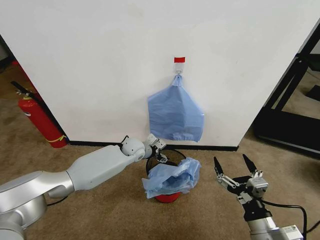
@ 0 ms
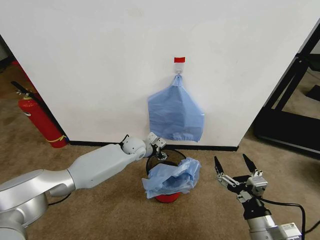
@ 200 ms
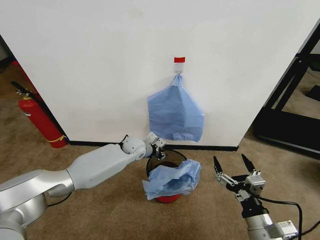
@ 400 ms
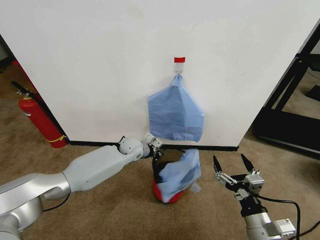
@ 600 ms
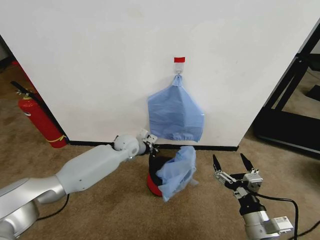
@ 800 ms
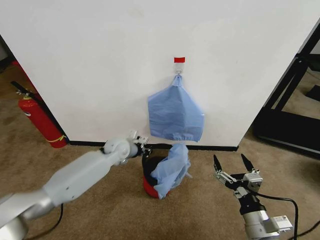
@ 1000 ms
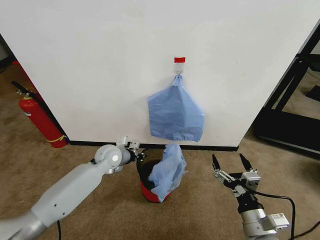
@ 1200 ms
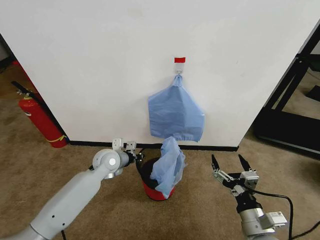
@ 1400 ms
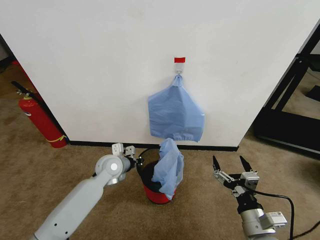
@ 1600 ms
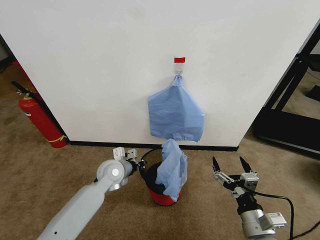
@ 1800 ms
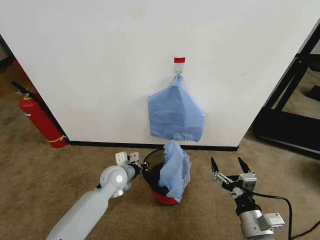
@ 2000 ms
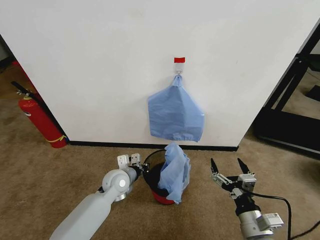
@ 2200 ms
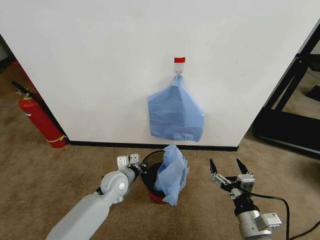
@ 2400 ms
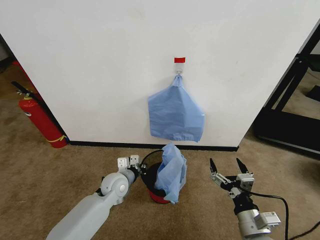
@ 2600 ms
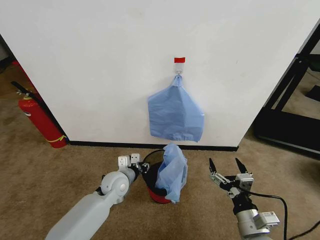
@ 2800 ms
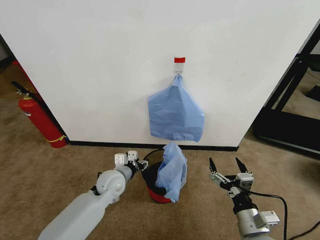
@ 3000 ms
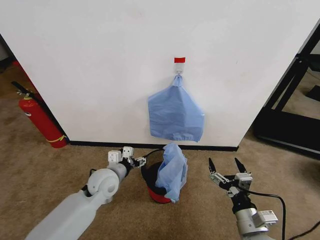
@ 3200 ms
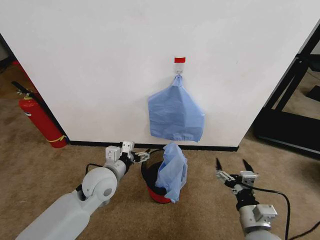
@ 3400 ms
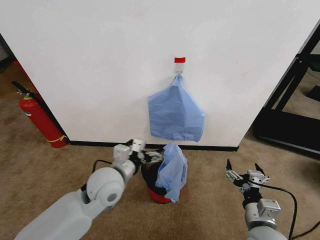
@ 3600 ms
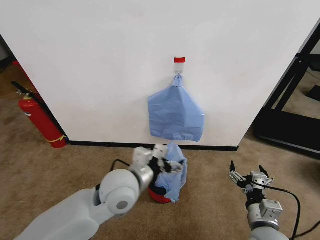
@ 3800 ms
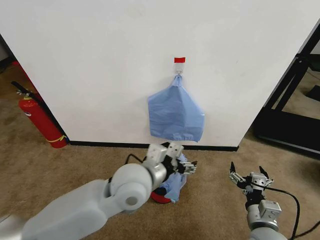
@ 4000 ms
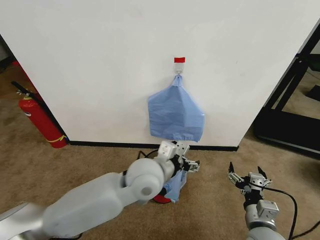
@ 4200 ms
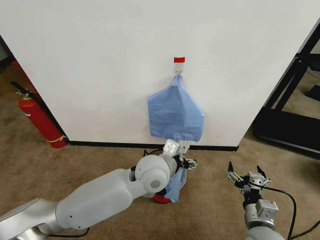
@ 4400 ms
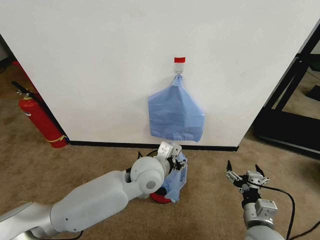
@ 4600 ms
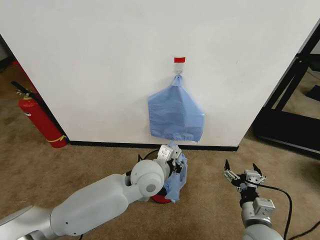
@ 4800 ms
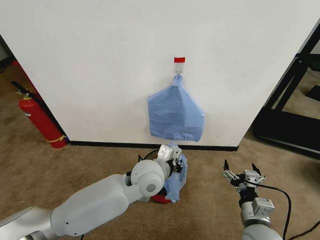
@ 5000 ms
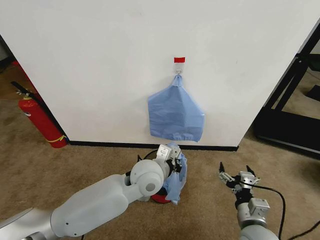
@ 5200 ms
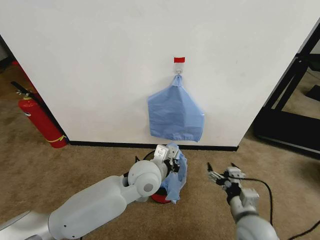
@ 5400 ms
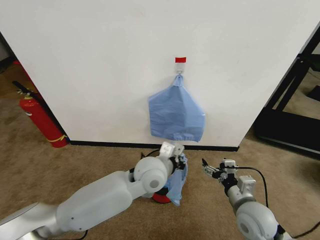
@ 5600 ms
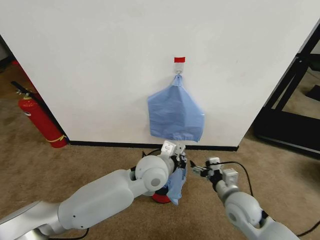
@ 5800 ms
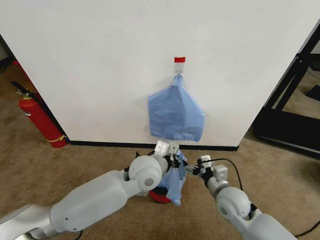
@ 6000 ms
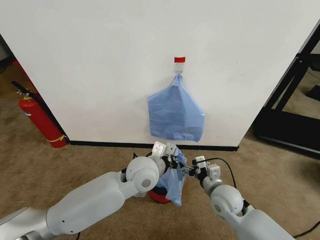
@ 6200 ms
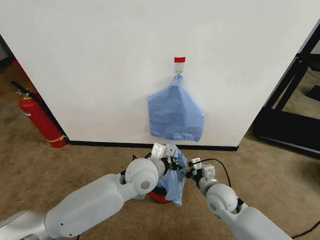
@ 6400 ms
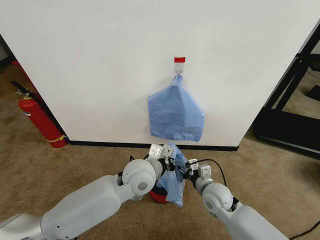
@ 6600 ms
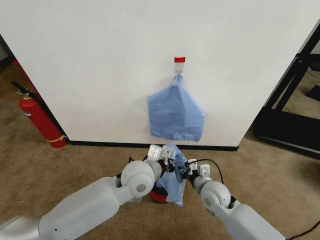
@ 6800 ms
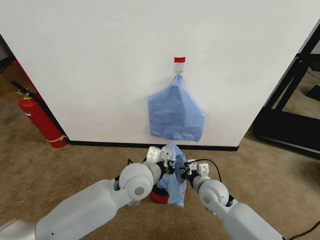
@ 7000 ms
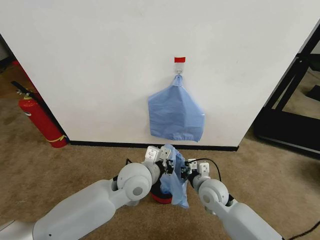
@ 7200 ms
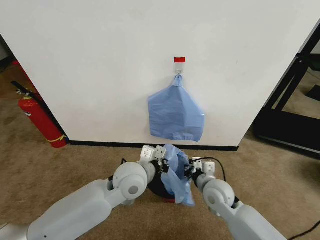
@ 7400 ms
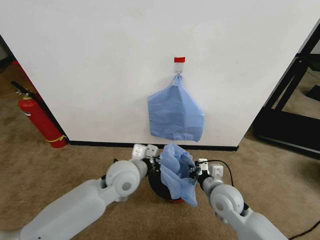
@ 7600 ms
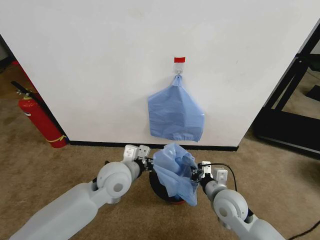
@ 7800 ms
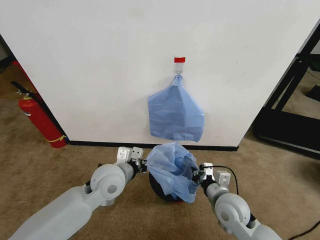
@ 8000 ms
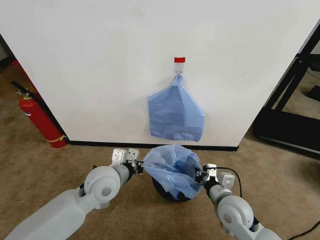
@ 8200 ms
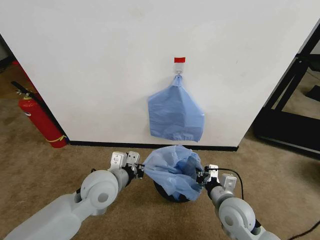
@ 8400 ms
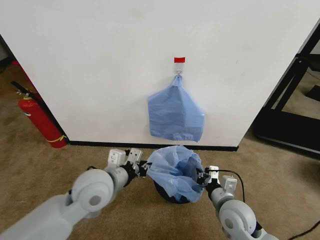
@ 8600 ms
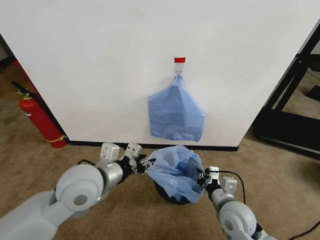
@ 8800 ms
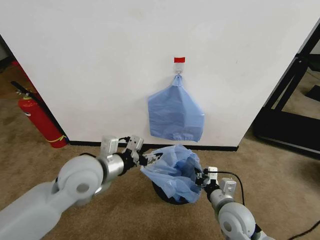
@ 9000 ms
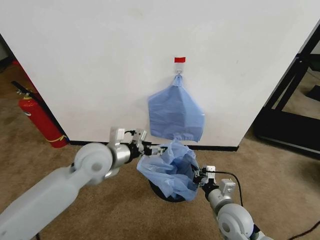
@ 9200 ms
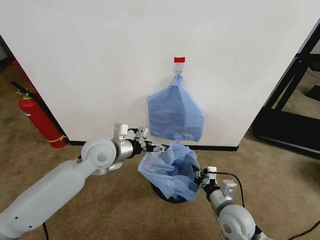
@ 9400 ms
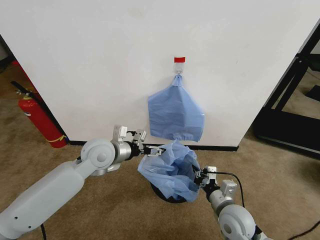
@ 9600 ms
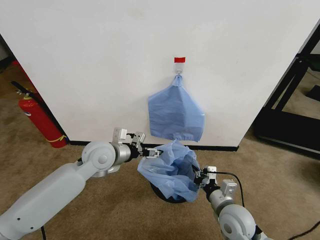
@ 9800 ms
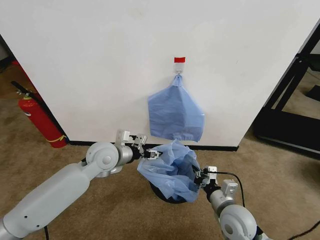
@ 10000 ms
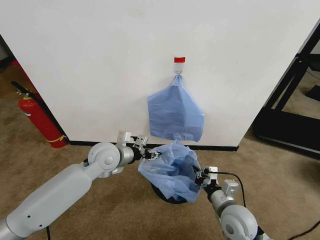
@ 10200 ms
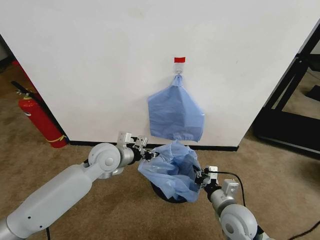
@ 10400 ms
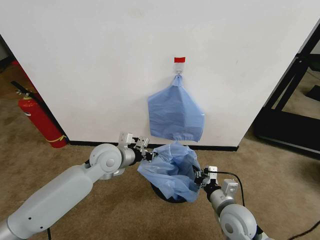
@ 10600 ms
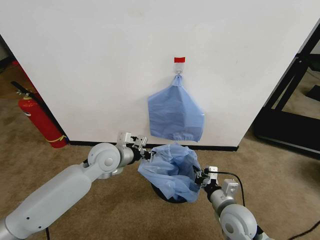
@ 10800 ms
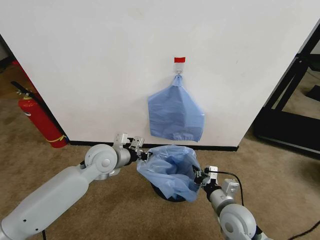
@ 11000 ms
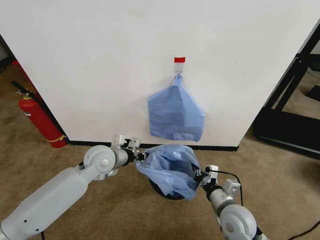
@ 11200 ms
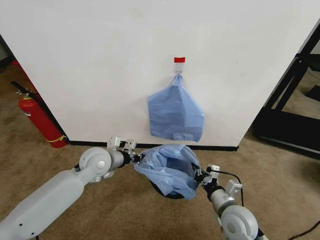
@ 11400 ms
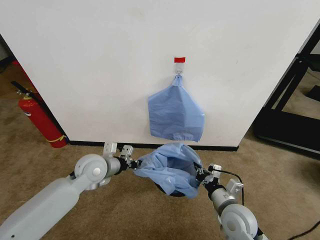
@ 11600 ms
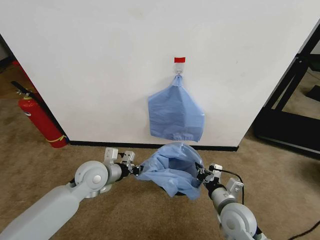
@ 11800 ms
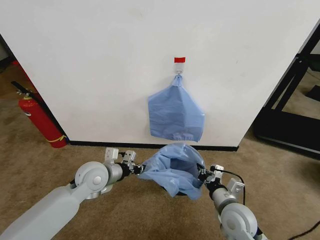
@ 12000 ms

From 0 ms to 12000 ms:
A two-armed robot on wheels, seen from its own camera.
Task of the whole recording: Pick up the garbage bag from the wall and place it over the trash bin.
From 0 ms to 1600 ms: The left gripper heads backward and to the left, covering roughly 10 cm, and closes its fingers.
From 1600 ms to 3000 ms: The left gripper heads backward, covering approximately 5 cm, and opens.
From 3000 ms to 4400 ms: The left gripper moves to the right and upward, approximately 20 cm.
From 4400 ms to 6000 ms: The right gripper goes roughly 10 cm forward. The left gripper closes its fingers.
From 6000 ms to 7600 ms: The right gripper closes its fingers. Meanwhile the left gripper moves to the left, approximately 5 cm.
From 7600 ms to 9000 ms: The left gripper goes some 10 cm to the left and upward, and opens, while the right gripper moves backward, about 5 cm.
From 9000 ms to 10400 ms: The left gripper is displaced forward and downward by approximately 10 cm, and closes its fingers.
From 10400 ms to 12000 ms: The left gripper shifts by some 5 cm.

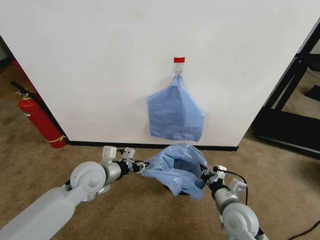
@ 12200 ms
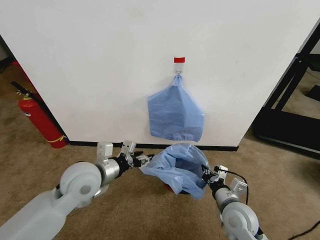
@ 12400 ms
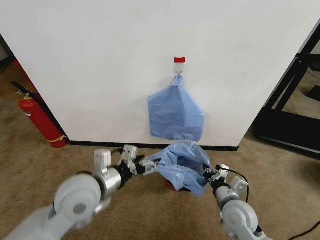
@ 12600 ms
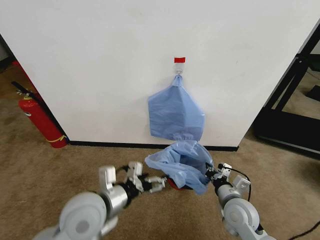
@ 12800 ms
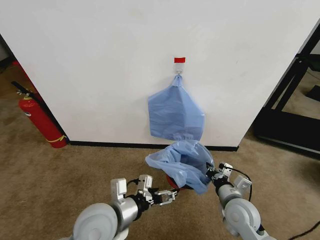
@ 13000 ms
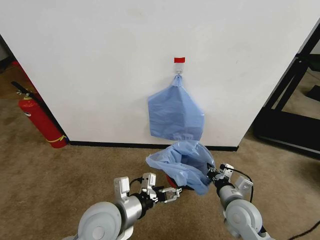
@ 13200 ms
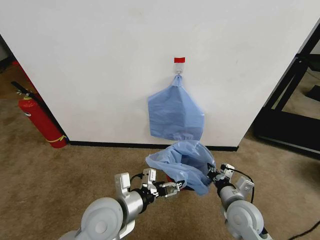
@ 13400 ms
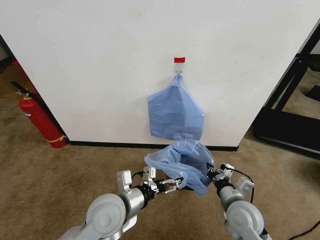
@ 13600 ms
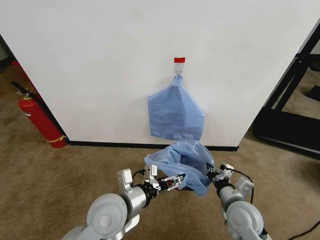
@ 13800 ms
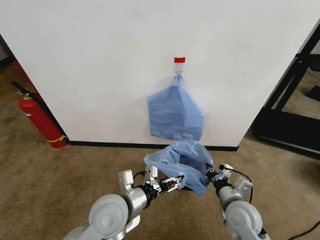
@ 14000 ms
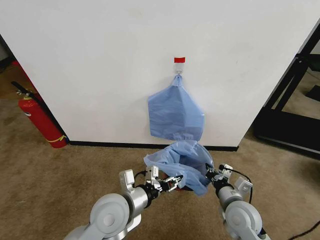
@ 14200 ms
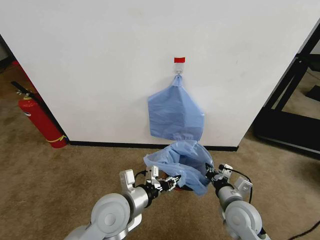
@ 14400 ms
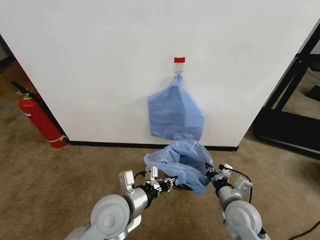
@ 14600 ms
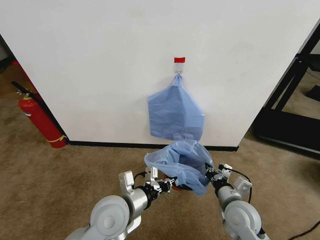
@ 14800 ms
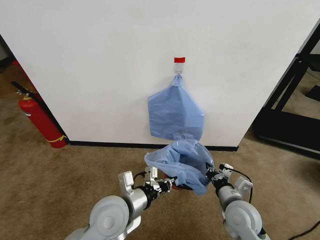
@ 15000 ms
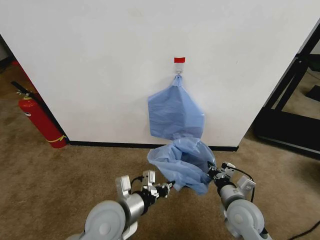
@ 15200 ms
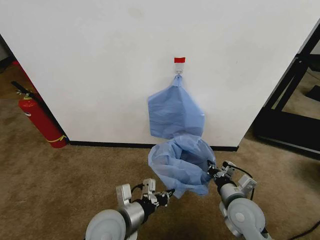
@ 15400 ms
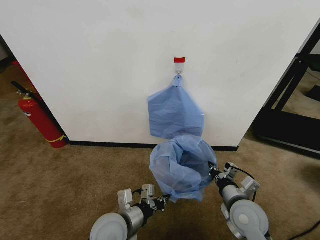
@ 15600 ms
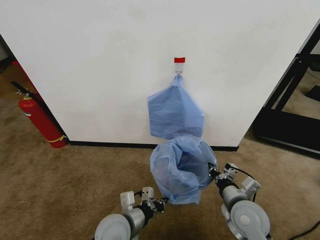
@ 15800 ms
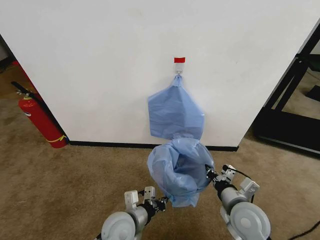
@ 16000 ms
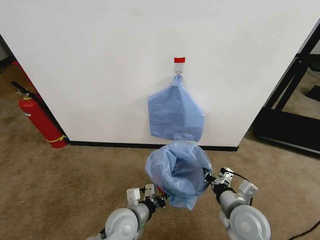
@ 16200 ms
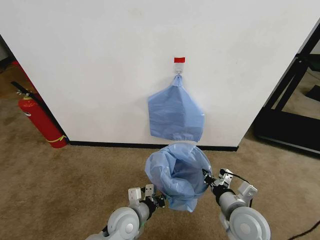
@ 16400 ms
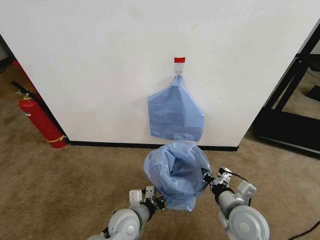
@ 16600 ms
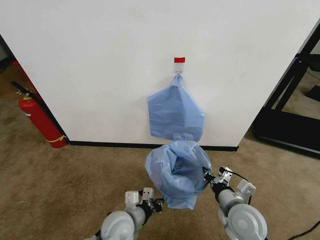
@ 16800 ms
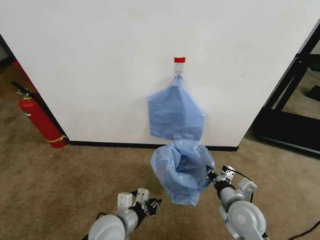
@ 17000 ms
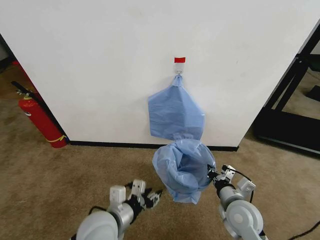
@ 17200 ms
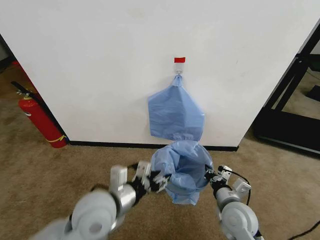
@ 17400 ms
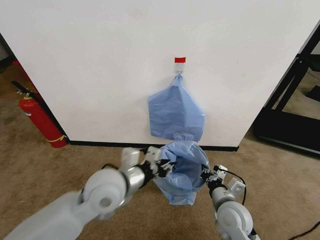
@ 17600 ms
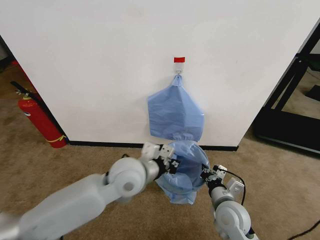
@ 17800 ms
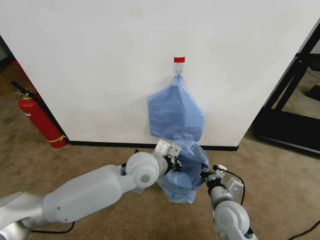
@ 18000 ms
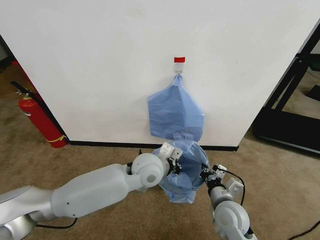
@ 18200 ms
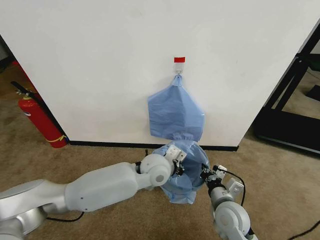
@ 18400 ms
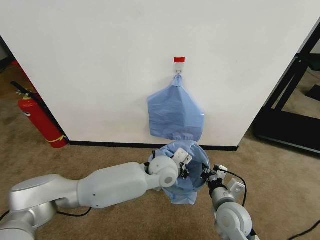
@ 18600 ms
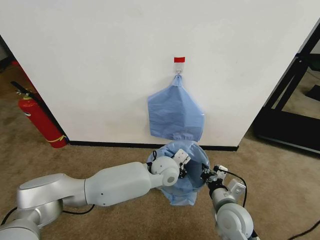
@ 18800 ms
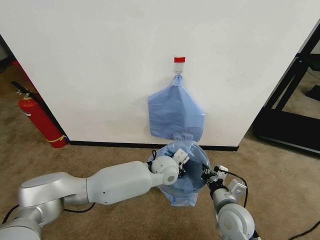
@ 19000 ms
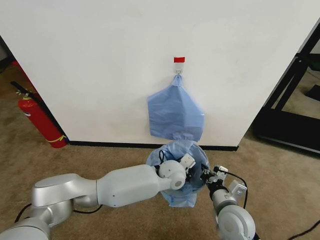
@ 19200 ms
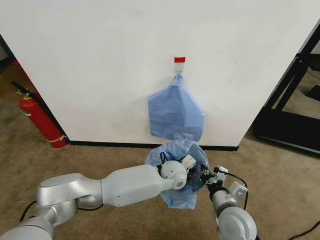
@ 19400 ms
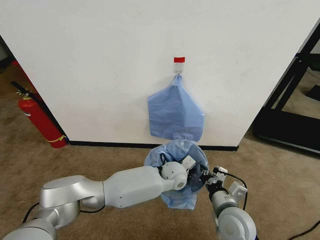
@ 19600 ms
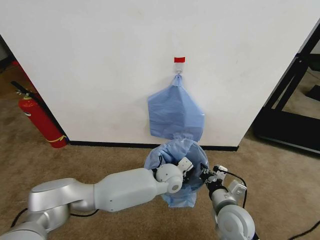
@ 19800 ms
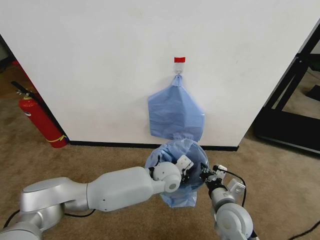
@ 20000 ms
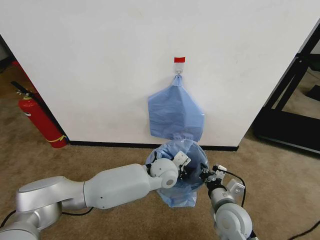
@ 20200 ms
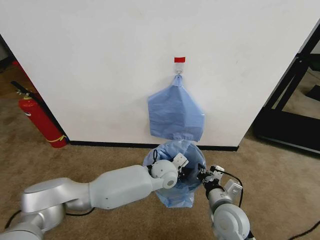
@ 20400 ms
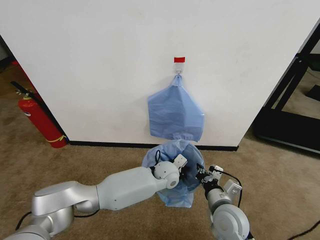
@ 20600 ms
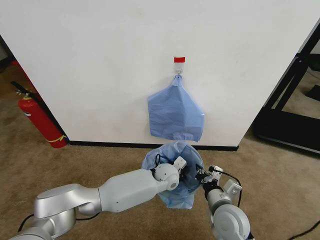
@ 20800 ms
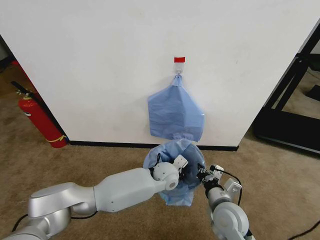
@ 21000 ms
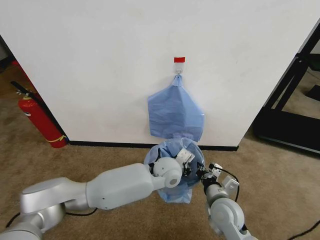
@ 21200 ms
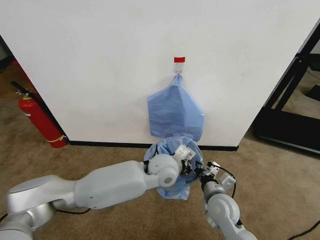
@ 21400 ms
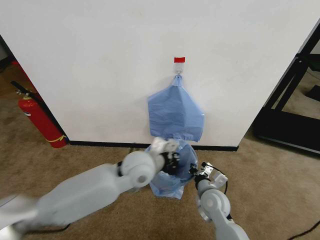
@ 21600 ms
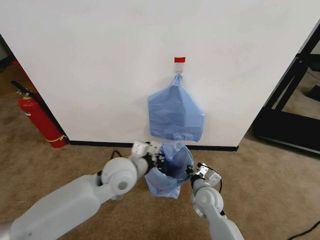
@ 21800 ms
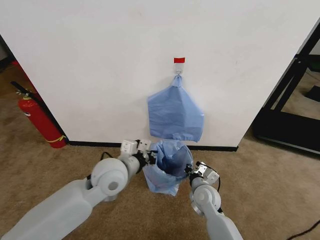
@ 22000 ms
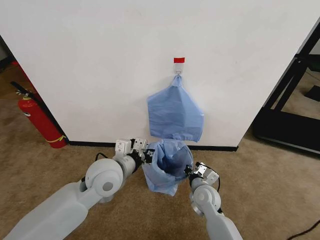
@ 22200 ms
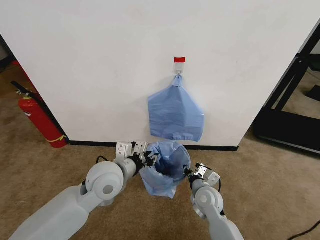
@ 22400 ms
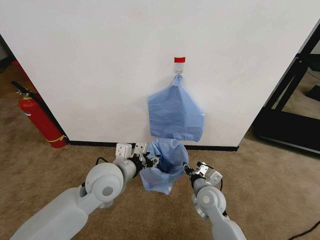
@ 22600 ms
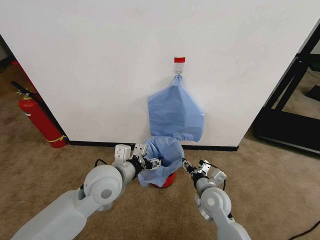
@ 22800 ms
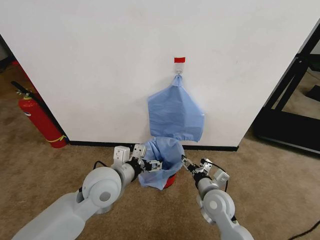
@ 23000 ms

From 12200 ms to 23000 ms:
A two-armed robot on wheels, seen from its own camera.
Task of the whole recording: Pick up the garbage bag from the wall and place it over the trash bin.
From 12200 ms to 13800 ms: The left gripper shifts about 15 cm backward and to the right, and opens its fingers.
From 13800 ms to 15200 ms: The left gripper closes.
From 15200 ms to 16800 ms: The left gripper is displaced downward by roughly 10 cm.
From 16800 ms to 18400 ms: The left gripper travels forward, upward and to the right by about 20 cm, and opens and closes again, while the right gripper shifts by roughly 5 cm.
From 18400 ms to 20000 ms: The left gripper shifts some 5 cm downward.
From 20000 ms to 21400 ms: The left gripper shifts roughly 5 cm upward.
From 21400 ms to 23000 ms: The left gripper shifts about 15 cm to the left and backward, and opens its fingers. Meanwhile the right gripper opens.
